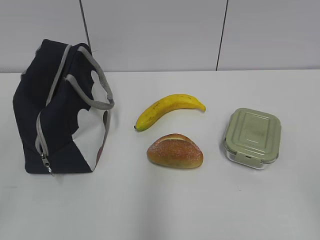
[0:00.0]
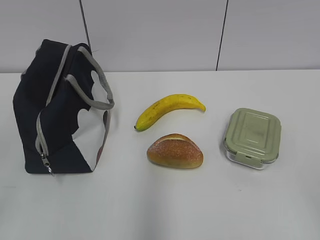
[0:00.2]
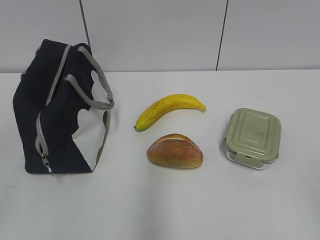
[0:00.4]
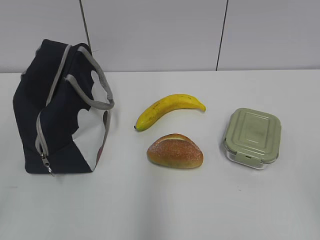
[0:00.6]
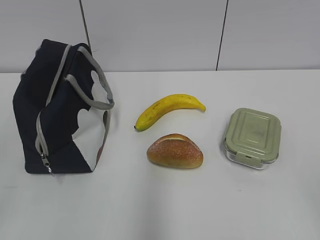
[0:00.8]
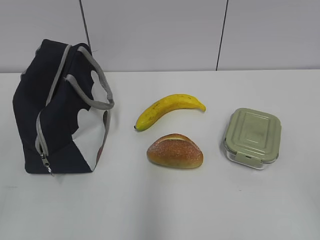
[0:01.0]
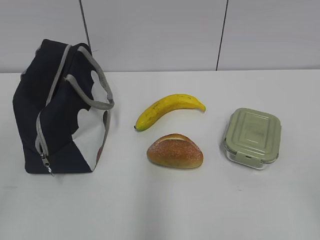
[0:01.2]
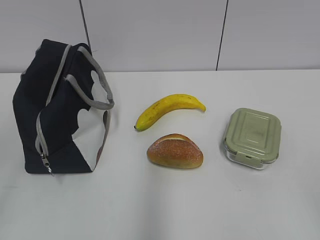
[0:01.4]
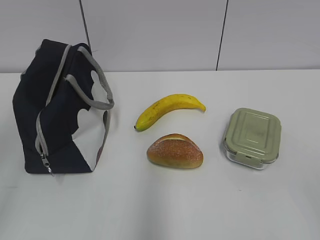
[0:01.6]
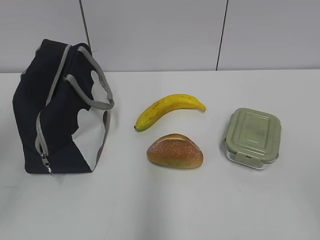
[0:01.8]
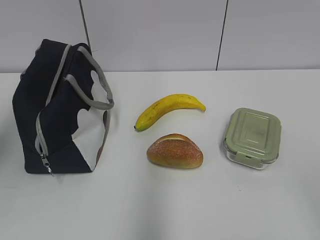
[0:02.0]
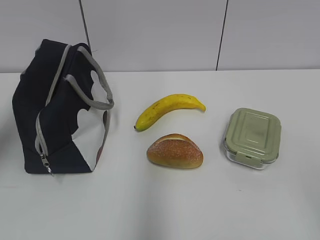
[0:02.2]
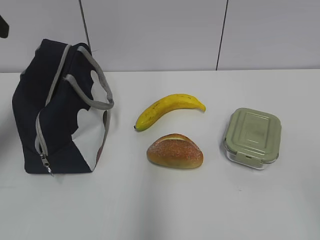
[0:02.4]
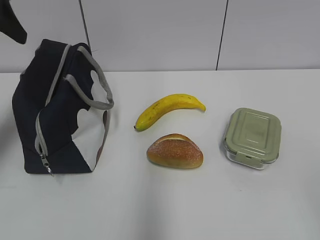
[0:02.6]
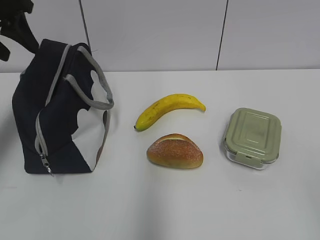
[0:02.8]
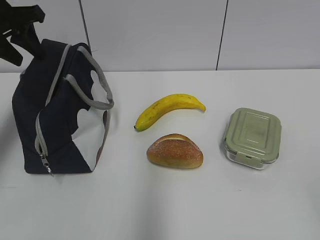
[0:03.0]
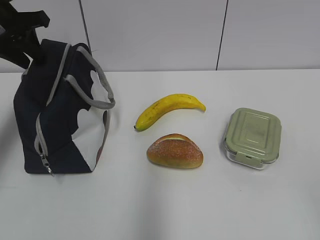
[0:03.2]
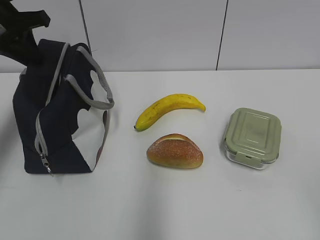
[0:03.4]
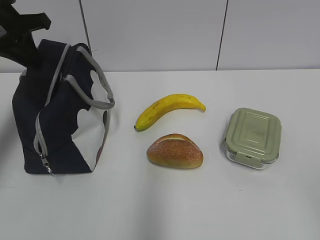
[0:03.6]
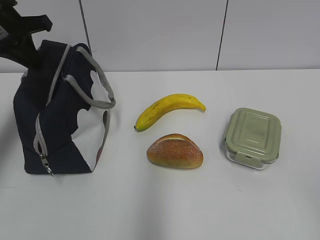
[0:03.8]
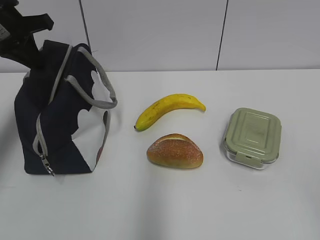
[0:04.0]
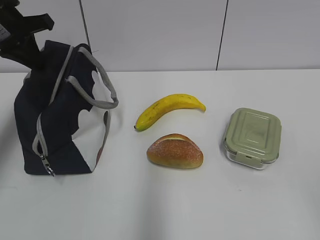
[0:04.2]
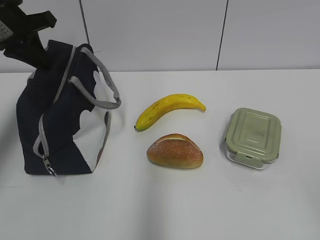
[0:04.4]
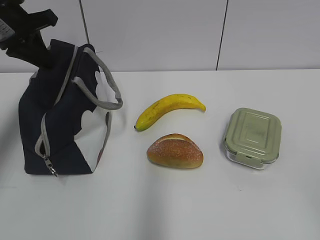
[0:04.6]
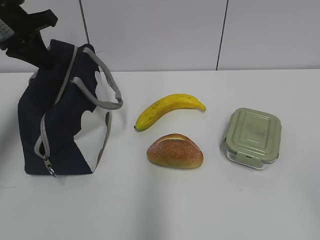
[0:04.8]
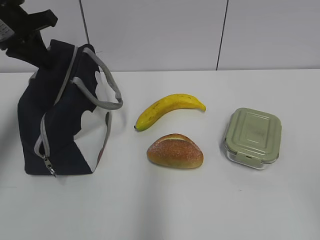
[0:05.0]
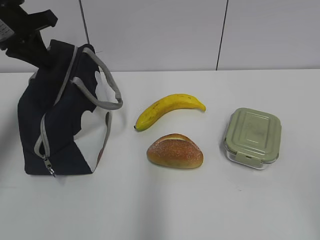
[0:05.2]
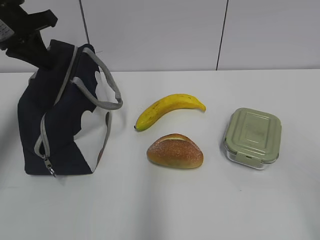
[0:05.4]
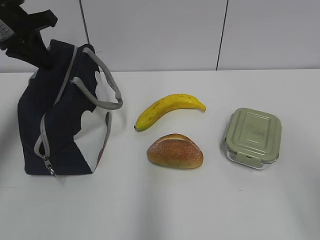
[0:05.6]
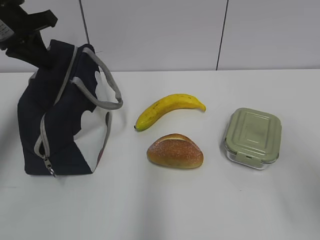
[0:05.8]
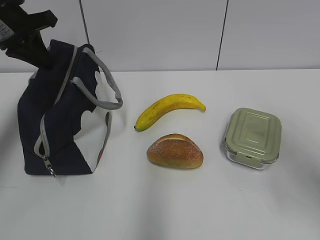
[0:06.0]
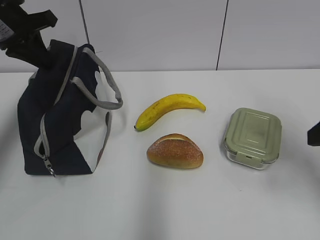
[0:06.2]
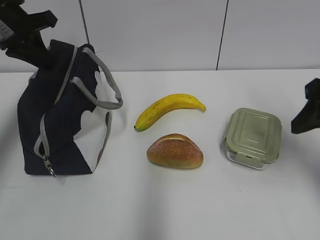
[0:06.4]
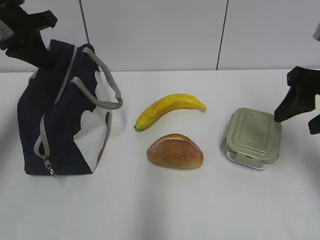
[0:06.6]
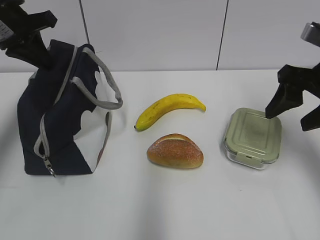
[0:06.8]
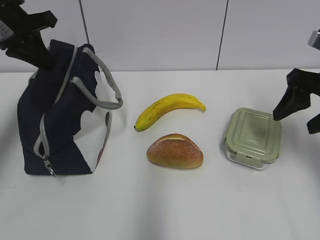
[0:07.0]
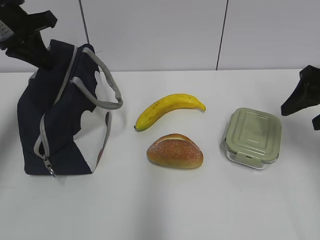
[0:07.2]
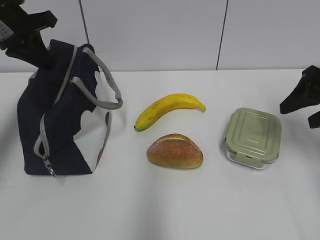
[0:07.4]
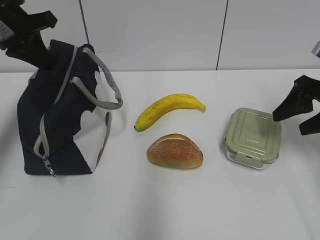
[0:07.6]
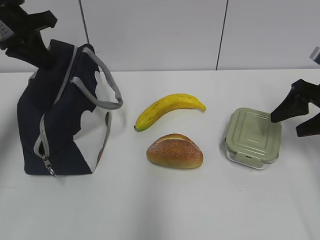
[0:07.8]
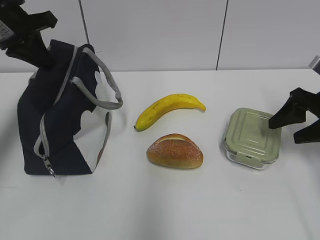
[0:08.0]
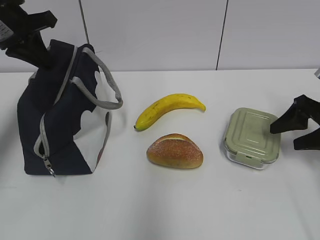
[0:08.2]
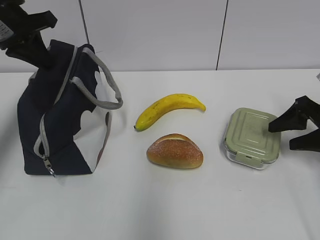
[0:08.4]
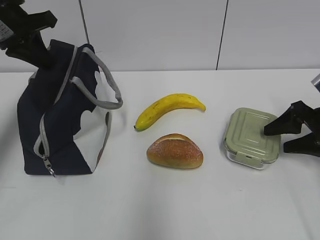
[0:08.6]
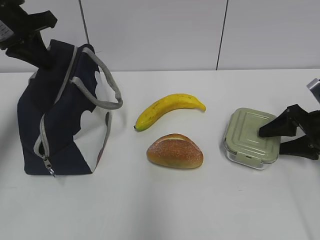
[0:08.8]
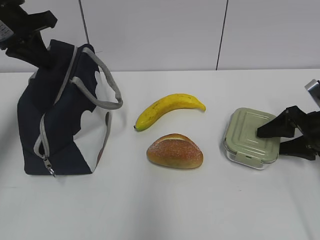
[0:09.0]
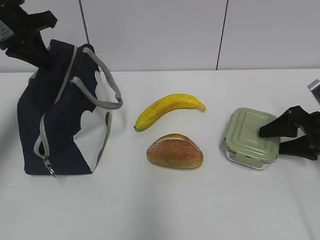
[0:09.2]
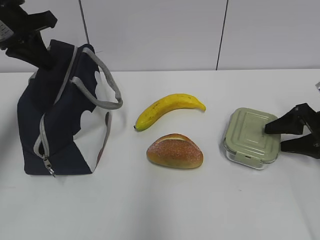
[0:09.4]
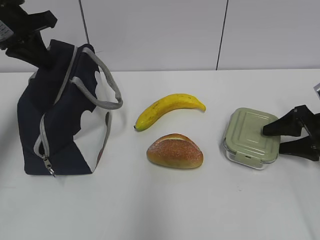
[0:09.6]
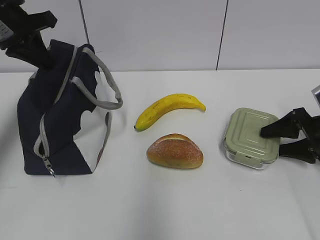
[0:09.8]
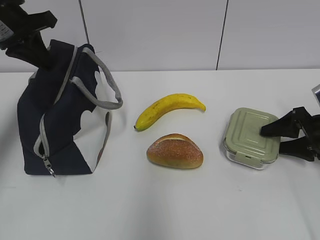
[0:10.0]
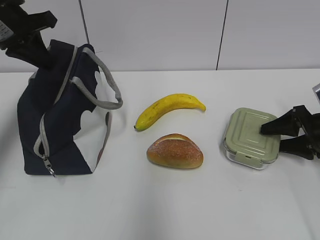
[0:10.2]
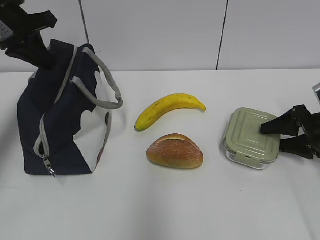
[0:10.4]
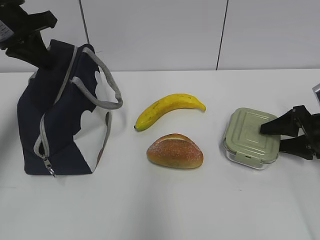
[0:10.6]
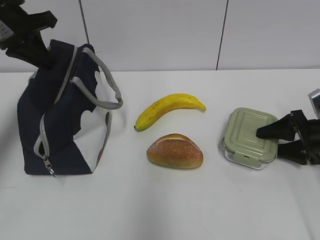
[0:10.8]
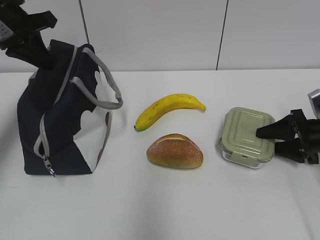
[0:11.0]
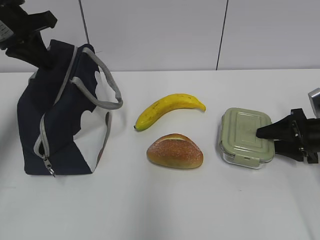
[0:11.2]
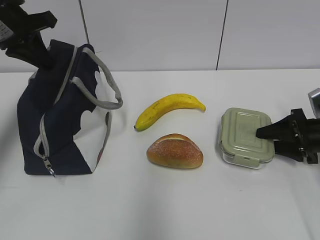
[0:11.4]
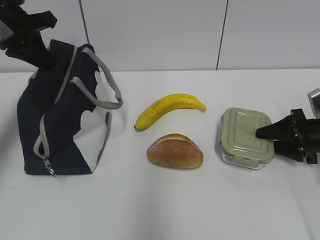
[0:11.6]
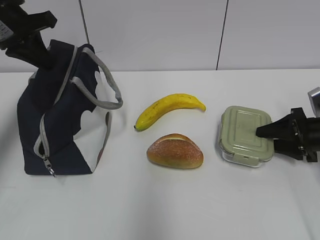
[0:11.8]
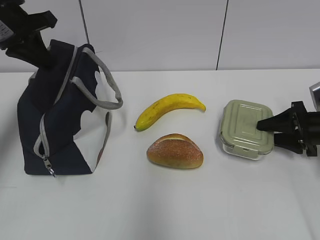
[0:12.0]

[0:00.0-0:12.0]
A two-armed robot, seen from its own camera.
Step, 0:00.0 to 0:11.6: Grab the lunch box with your right hand.
0:01.6 to 0:03.0: The left gripper goes about 35 cm forward, and closes up.
0:03.0 to 0:04.4: The left gripper closes.
0:04.4 to 0:06.0: The right gripper is displaced forward by approximately 15 cm.
0:06.0 to 0:07.6: The right gripper is displaced forward by some 15 cm.
0:07.6 to 0:09.0: The right gripper shifts about 10 cm downward.
0:09.0 to 0:12.0: The grippers move only a little.

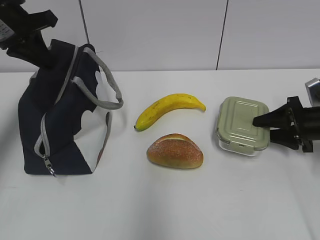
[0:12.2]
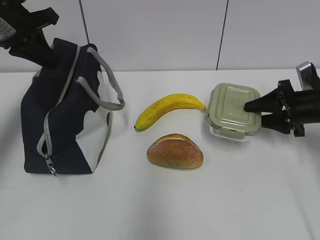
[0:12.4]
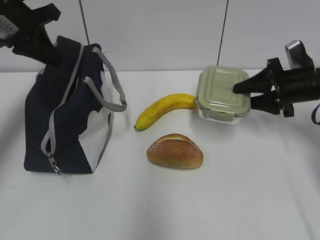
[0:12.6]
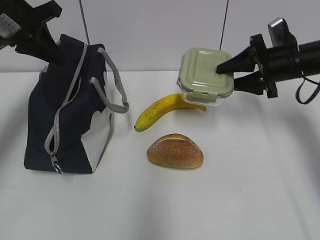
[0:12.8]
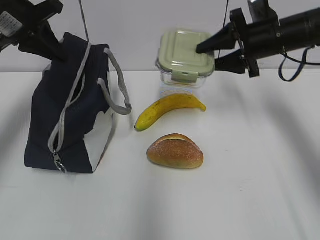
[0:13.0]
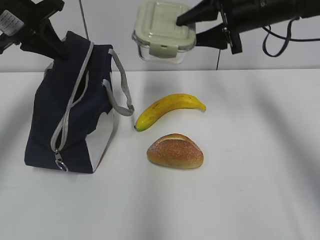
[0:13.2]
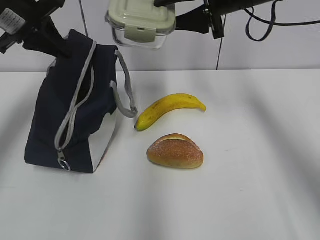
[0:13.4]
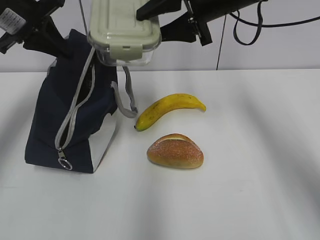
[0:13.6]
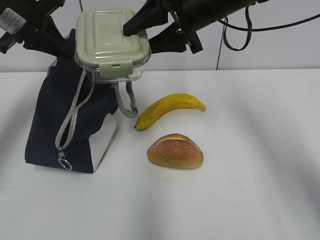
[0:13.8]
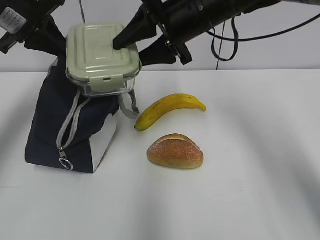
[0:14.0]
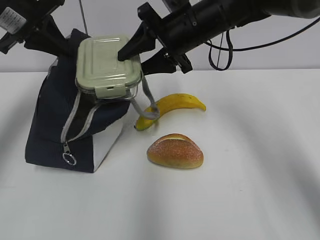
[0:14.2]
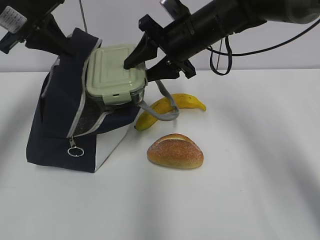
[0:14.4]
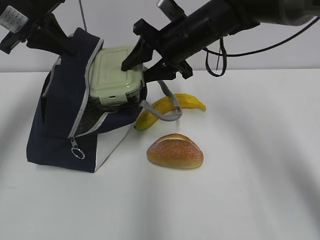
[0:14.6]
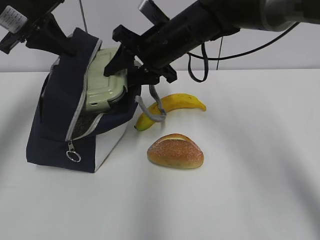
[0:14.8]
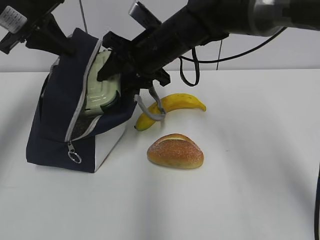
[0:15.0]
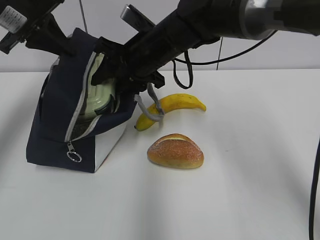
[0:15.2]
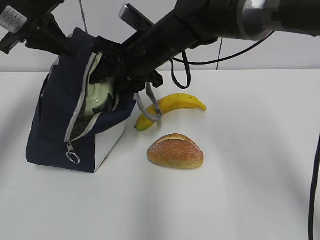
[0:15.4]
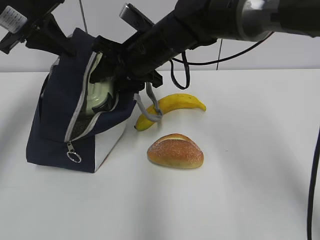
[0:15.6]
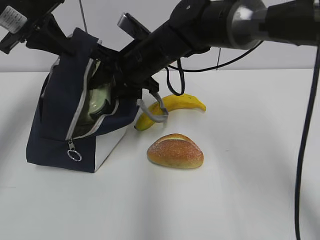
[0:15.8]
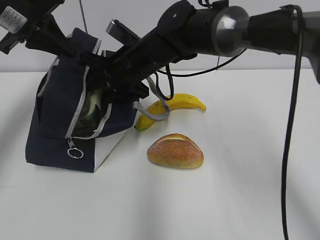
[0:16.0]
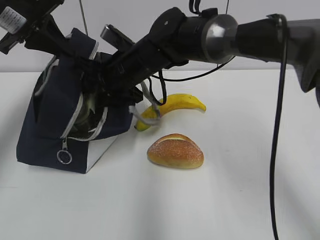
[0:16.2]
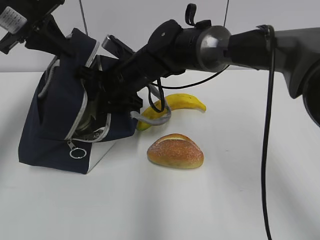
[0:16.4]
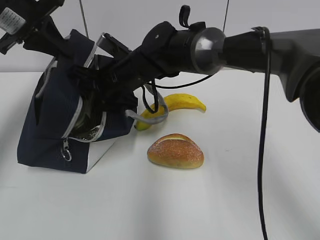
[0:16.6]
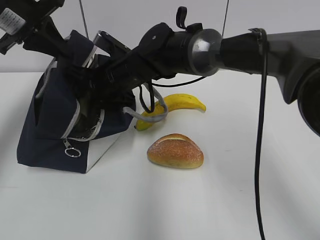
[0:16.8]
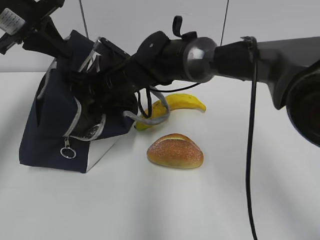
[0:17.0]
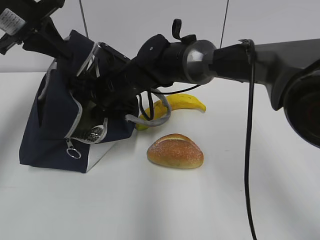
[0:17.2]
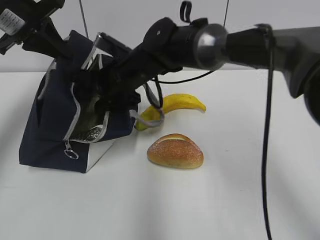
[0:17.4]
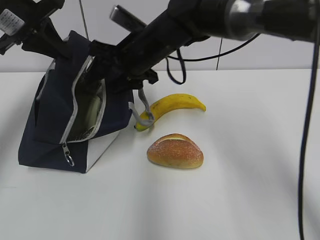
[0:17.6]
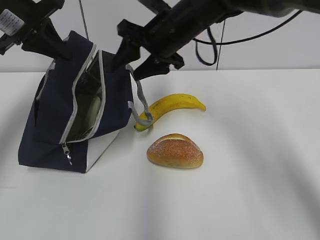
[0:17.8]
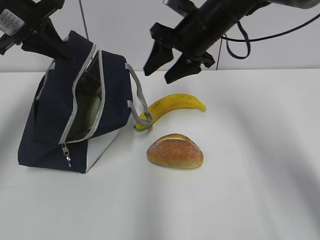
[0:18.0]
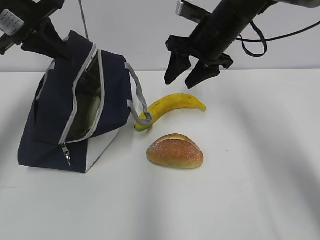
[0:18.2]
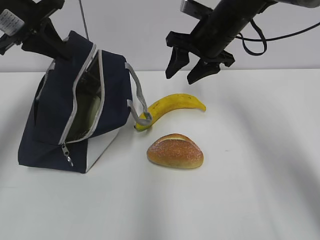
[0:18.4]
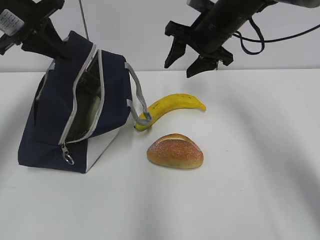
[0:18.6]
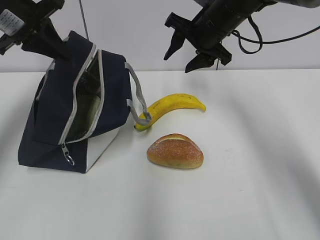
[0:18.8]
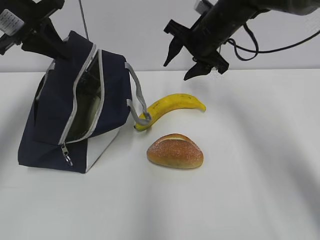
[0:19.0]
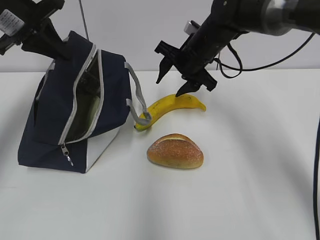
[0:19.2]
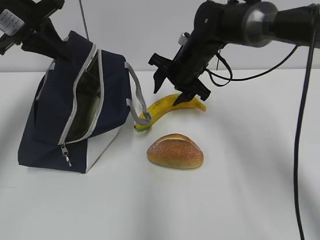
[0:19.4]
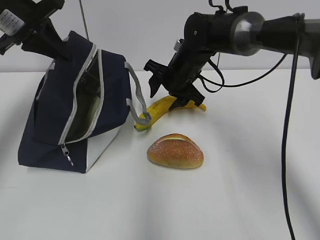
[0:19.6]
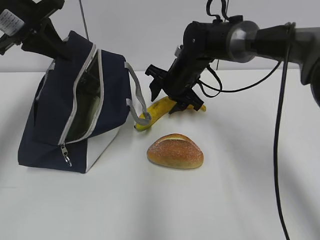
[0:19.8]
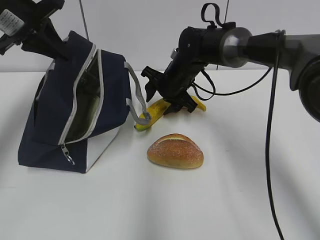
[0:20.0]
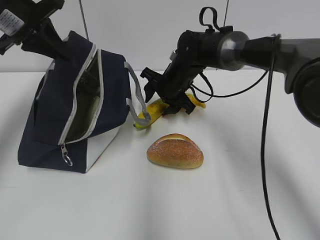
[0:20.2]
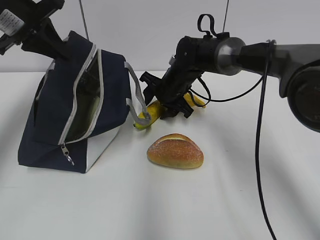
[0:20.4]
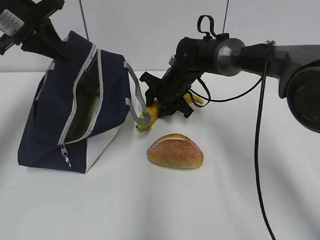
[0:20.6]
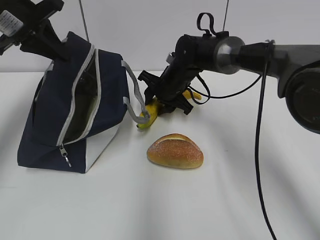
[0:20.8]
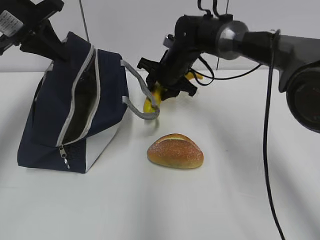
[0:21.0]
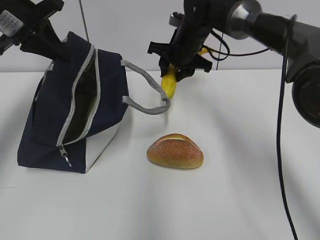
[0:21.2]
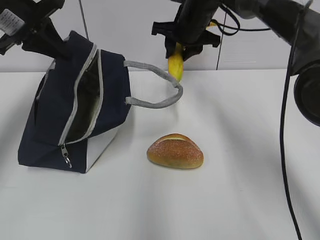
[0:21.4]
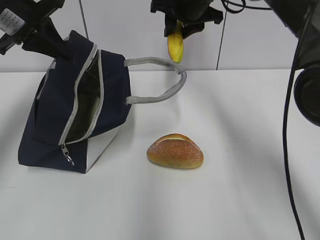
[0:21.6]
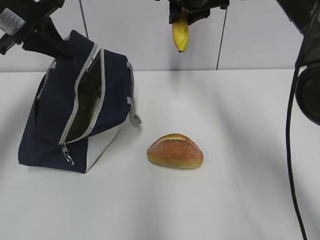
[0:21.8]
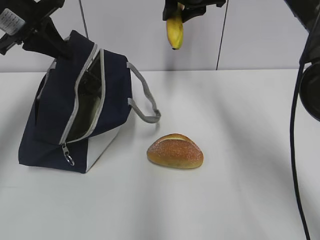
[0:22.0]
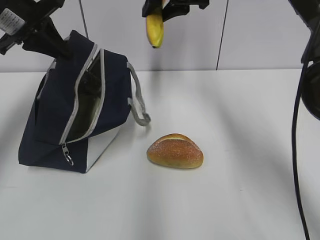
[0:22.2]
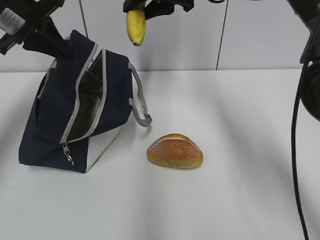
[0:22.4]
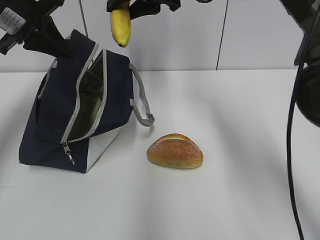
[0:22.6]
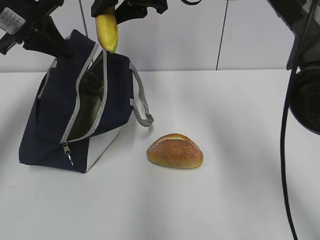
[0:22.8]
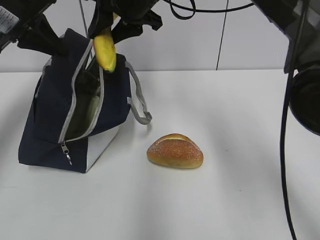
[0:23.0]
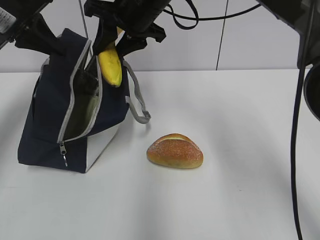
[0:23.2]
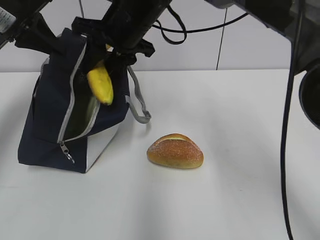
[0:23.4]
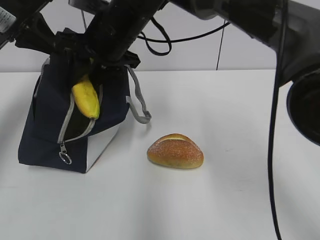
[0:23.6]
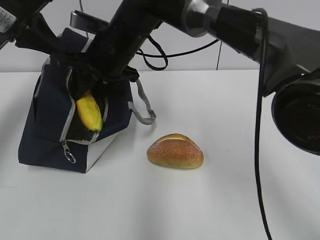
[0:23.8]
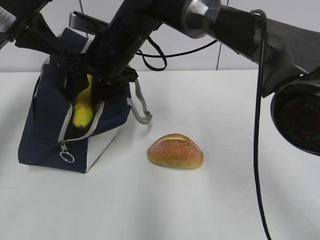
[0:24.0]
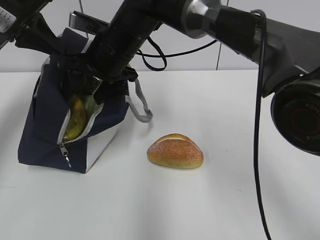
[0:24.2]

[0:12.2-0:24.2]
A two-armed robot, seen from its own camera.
Step, 0:14.4 to 0:17.4: Place it into the bag with your right hand.
Step, 0:17.6 to 0:20.6: Grab the banana with your right hand.
0:12.2 to 0:13.8: The right gripper travels to the left and upward by roughly 30 cm.
0:13.8 to 0:15.2: The right gripper travels to the left and downward by some 10 cm.
0:15.2 to 0:16.6: The right gripper is displaced to the left and downward by some 10 cm.
0:16.6 to 0:18.2: The right gripper is displaced to the right by approximately 15 cm.
0:18.2 to 0:19.8: The right gripper heads downward and to the left, covering roughly 10 cm.
0:19.8 to 0:21.2: The right gripper shifts approximately 5 cm upward.
0:21.2 to 0:22.6: The right gripper shifts some 15 cm upward.
0:22.6 to 0:24.2: The right gripper heads downward and to the left, covering about 15 cm, and opens.
